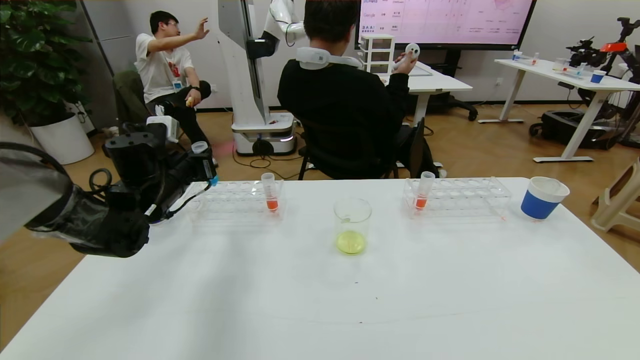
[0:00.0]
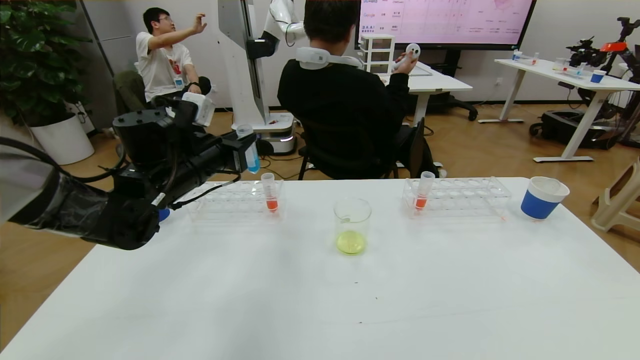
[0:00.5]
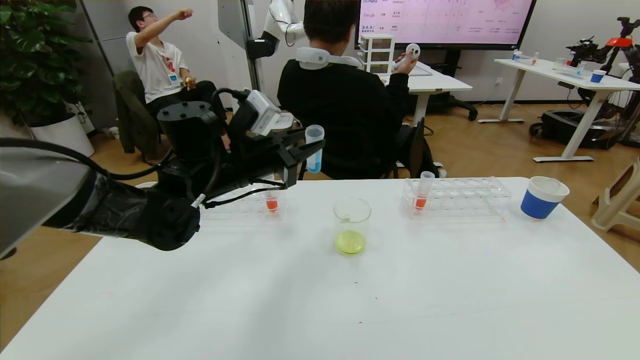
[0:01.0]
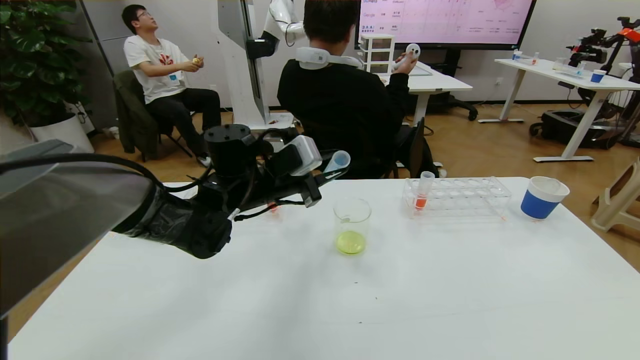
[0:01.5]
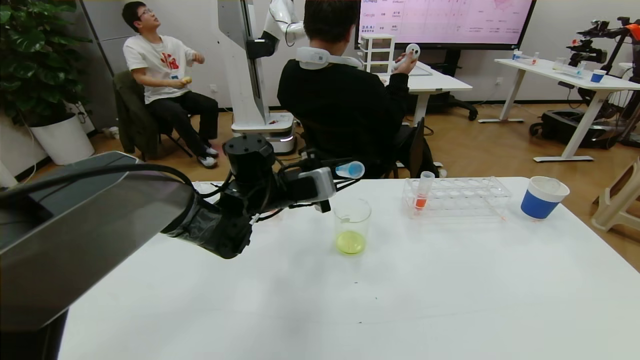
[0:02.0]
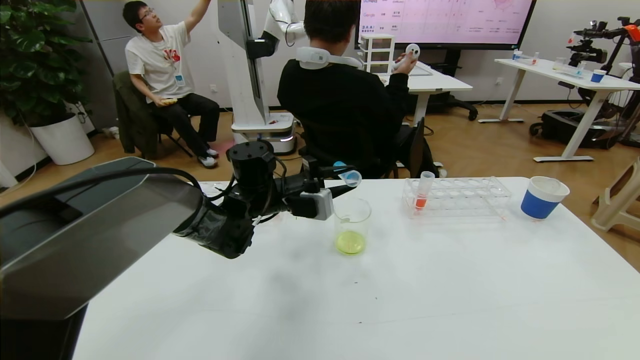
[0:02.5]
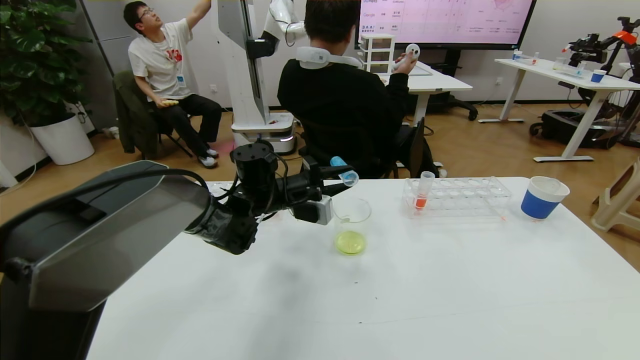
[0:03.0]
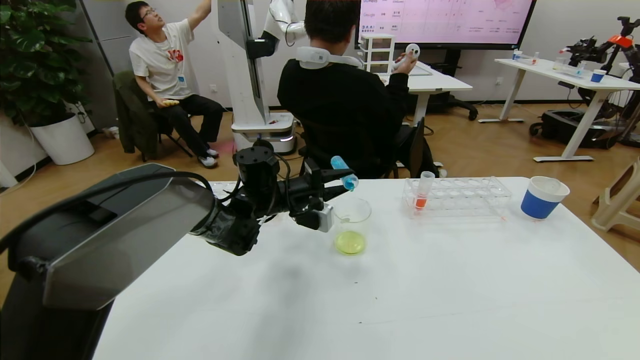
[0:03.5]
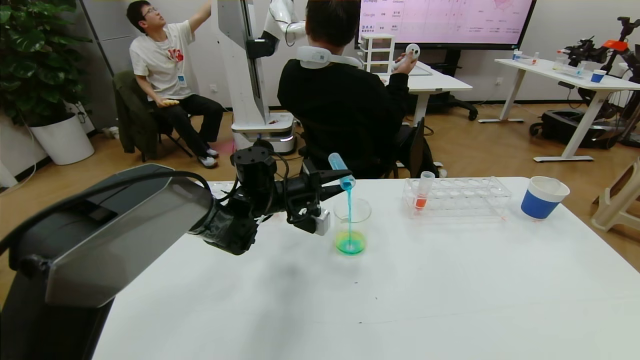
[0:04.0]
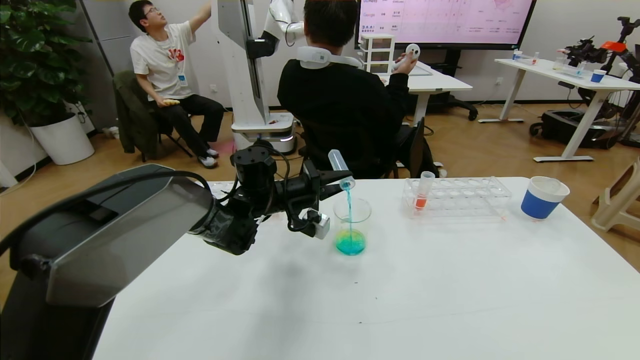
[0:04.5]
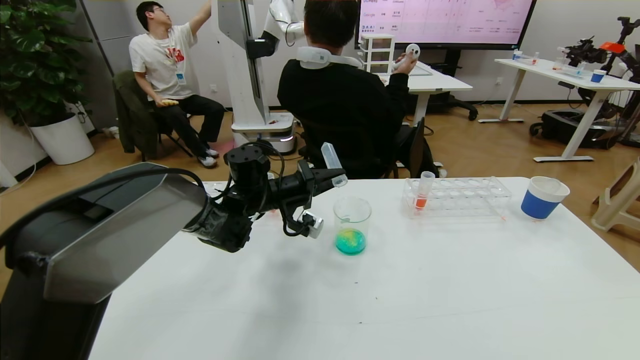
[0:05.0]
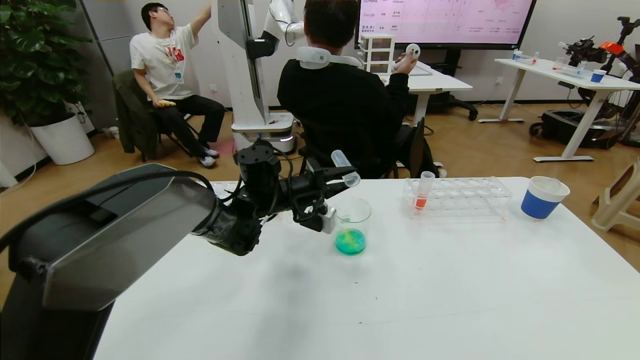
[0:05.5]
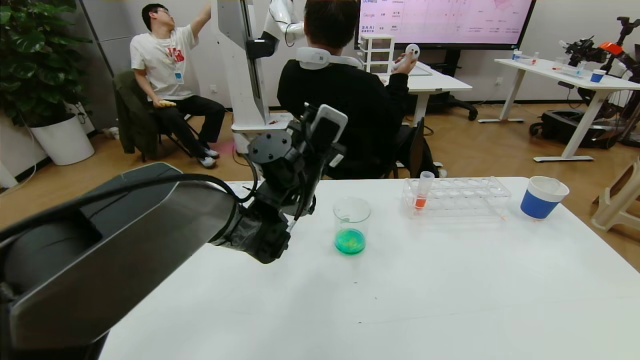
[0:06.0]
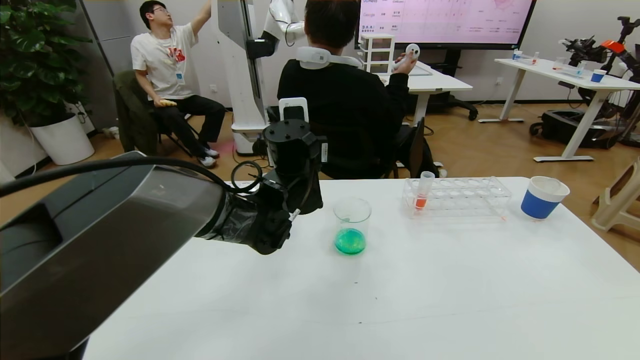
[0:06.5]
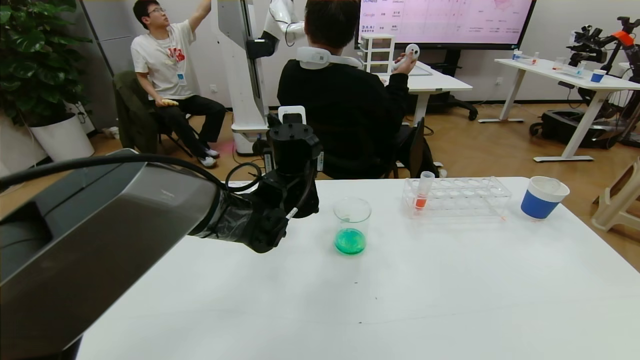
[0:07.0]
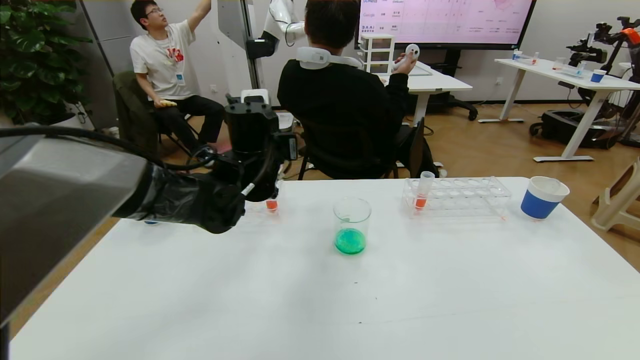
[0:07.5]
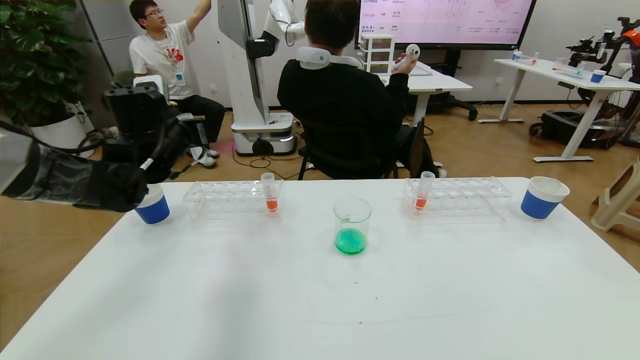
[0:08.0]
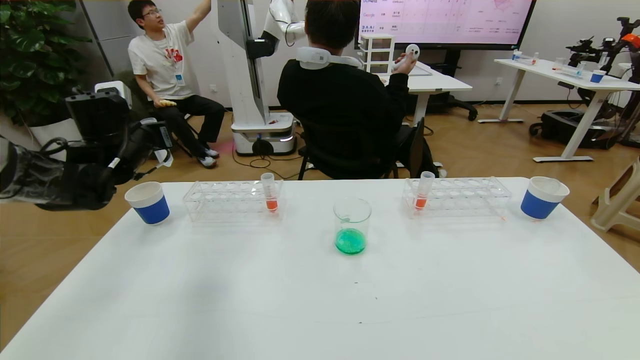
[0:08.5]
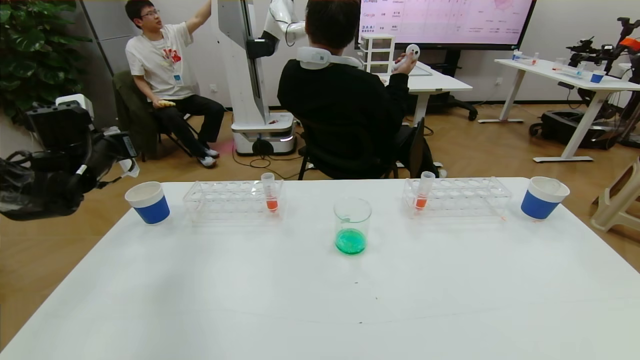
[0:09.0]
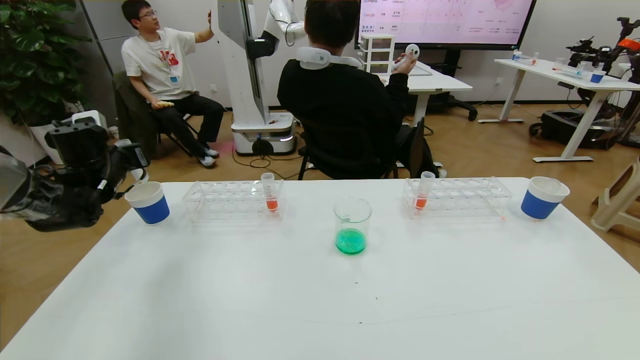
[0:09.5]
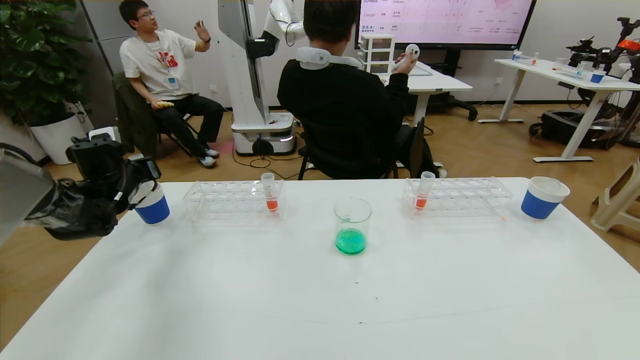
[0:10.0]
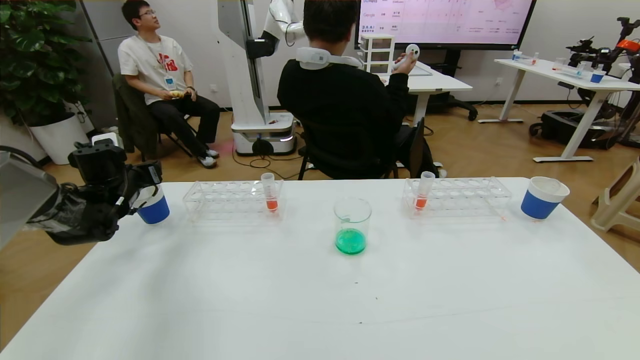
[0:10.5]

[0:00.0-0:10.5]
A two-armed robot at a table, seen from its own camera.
Task of the whole recording: pick up the test tube with yellow pigment and the test tube with blue pigment by grippers and pour them into the beaker.
0:00.0 to 0:02.0: The left gripper heads to the right, covering some 20 cm.
0:02.0 to 0:04.0: The left gripper shifts by approximately 5 cm.
0:04.0 to 0:06.5: The left gripper heads upward and to the right, covering some 10 cm.
0:06.5 to 0:08.5: The left gripper travels to the left by roughly 30 cm.
0:08.5 to 0:10.5: The left gripper heads downward and to the left, covering roughly 10 cm, and opens.

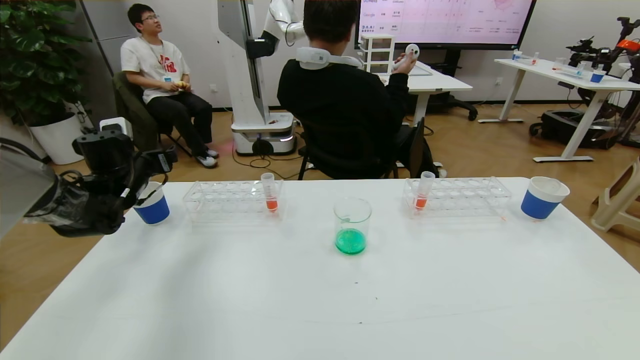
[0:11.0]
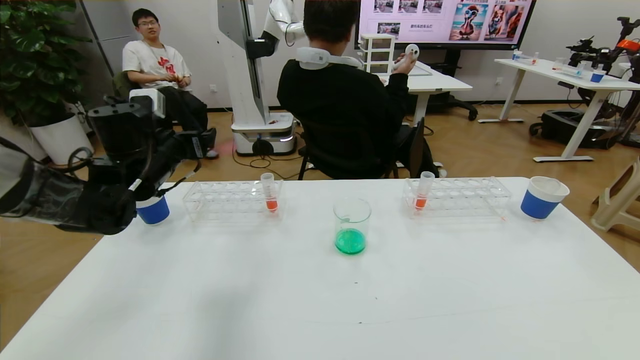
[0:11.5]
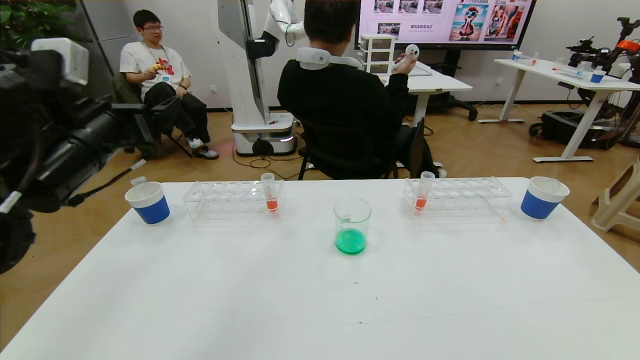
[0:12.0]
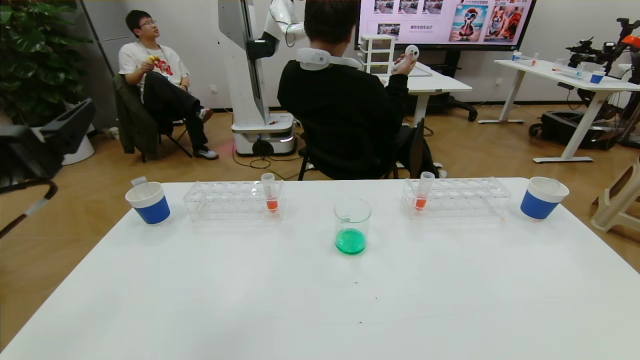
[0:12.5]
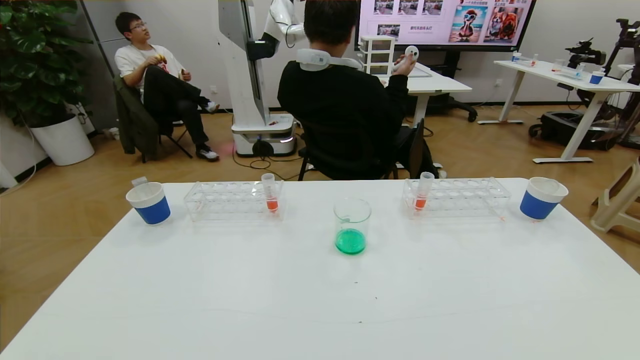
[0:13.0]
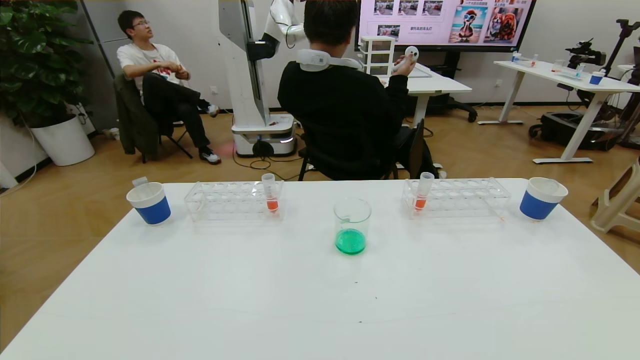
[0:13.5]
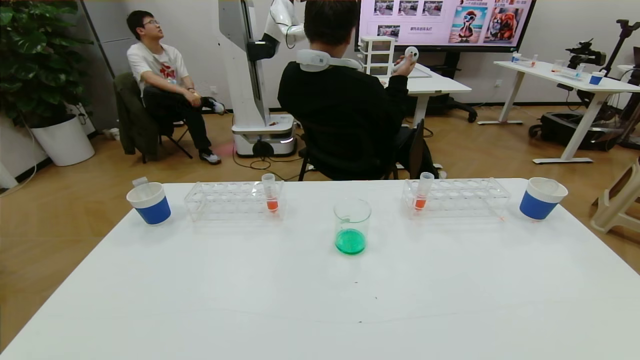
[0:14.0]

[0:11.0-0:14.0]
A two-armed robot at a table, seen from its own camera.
Task of the whole recording: pick up the test tube with yellow pigment and the test tube with blue pigment by grippers and pour them into the beaker.
0:11.0 to 0:12.5: The left gripper goes about 30 cm backward and upward.
0:12.5 to 0:14.0: The left gripper shifts some 25 cm downward and backward.
